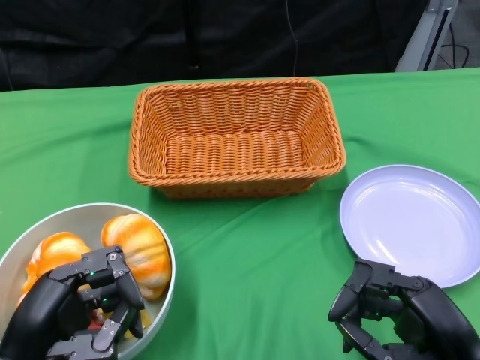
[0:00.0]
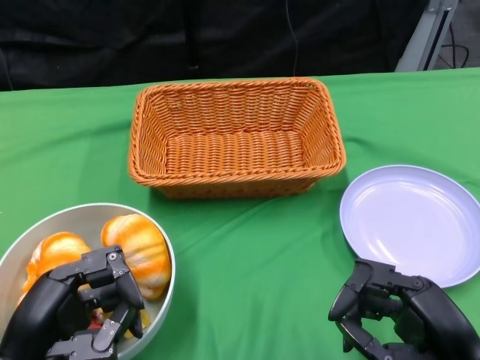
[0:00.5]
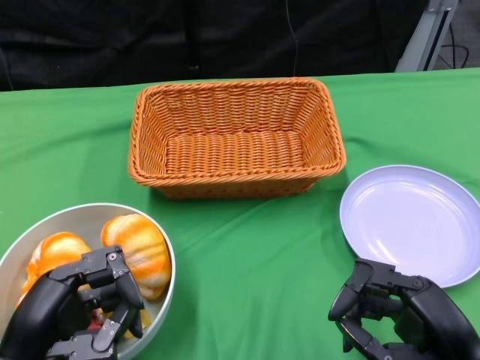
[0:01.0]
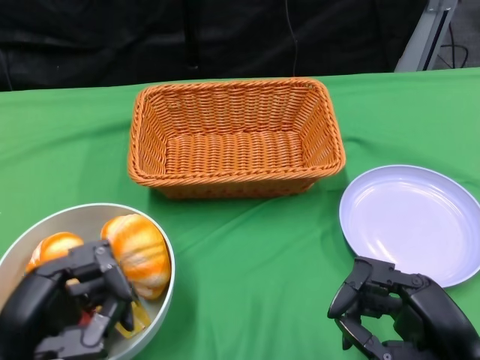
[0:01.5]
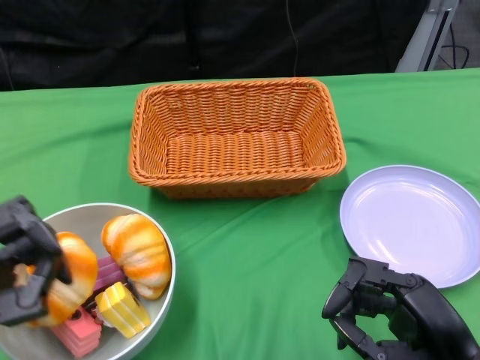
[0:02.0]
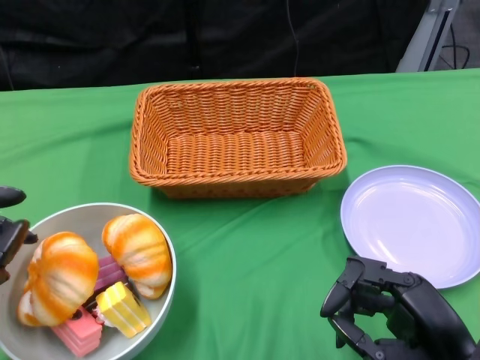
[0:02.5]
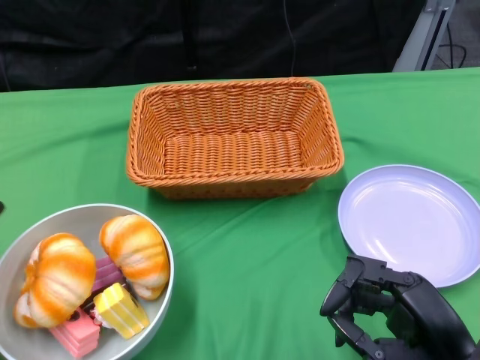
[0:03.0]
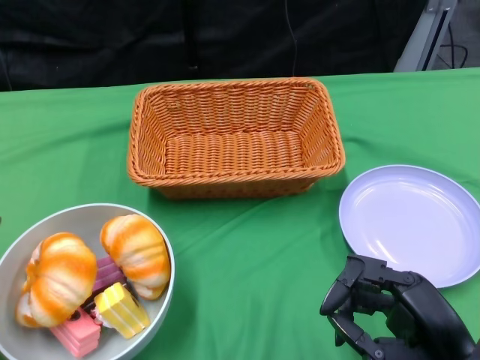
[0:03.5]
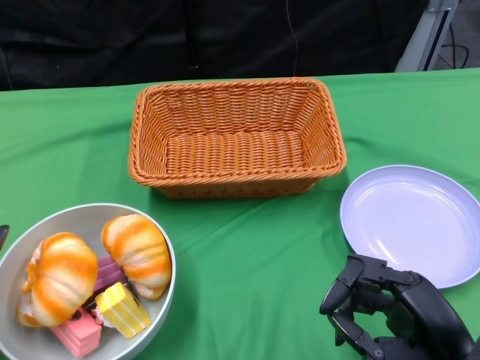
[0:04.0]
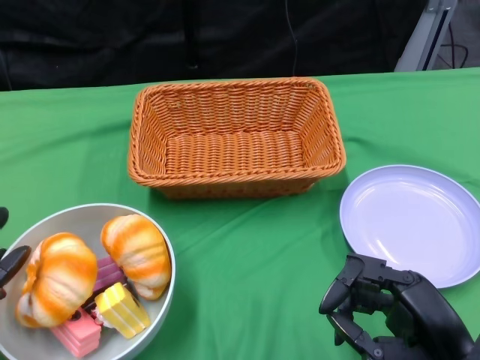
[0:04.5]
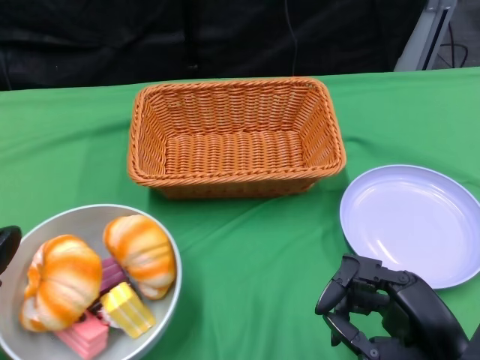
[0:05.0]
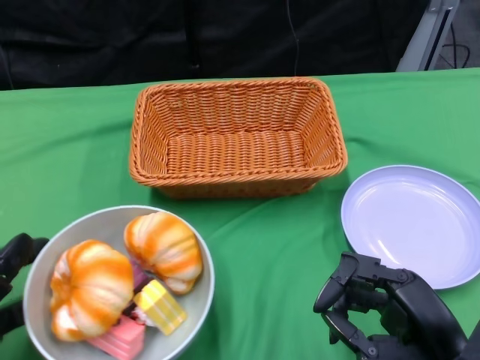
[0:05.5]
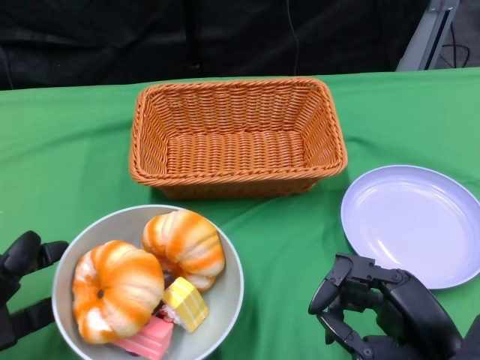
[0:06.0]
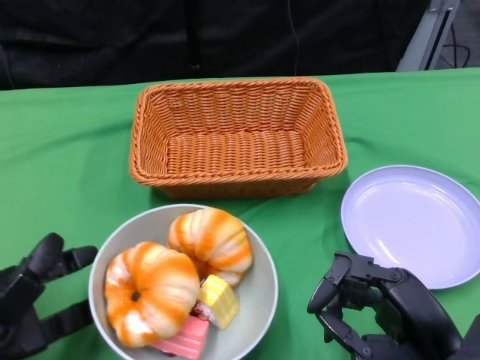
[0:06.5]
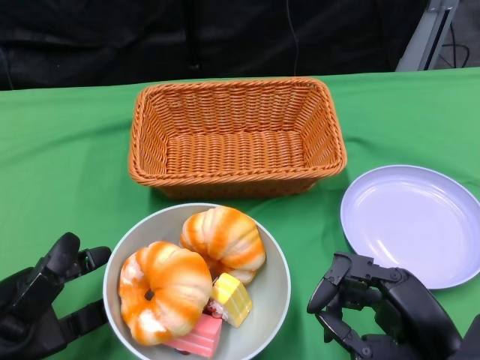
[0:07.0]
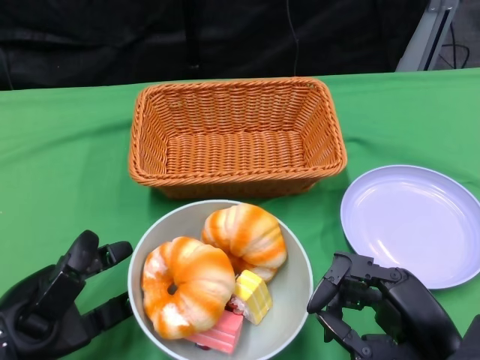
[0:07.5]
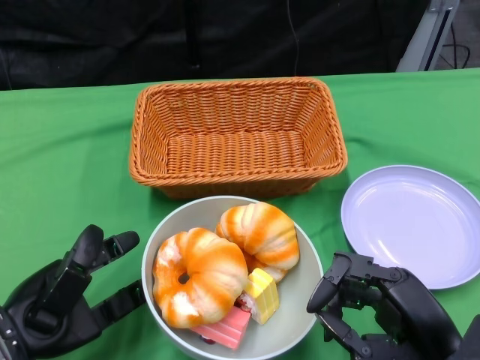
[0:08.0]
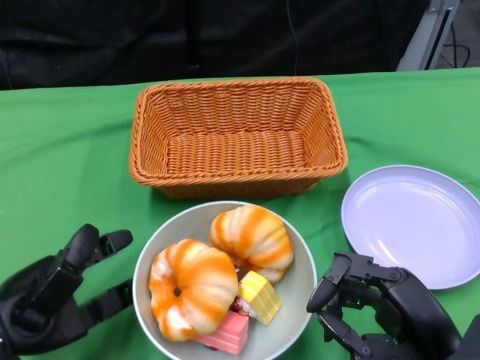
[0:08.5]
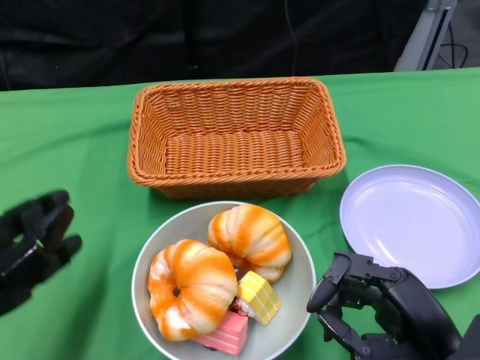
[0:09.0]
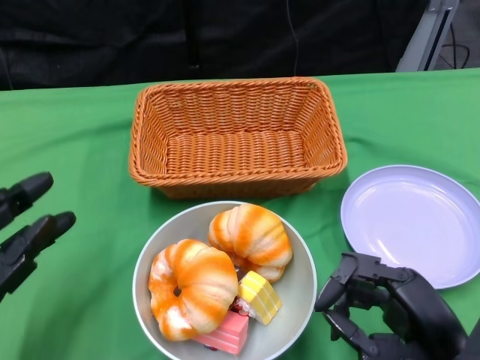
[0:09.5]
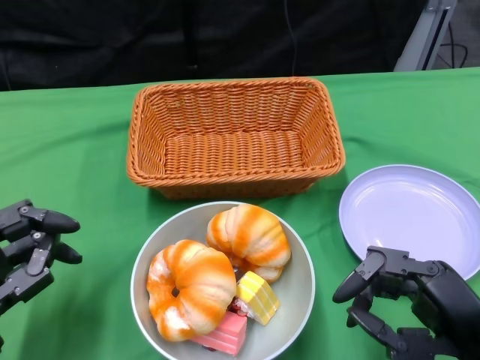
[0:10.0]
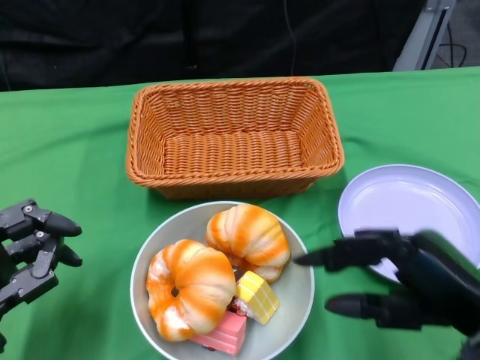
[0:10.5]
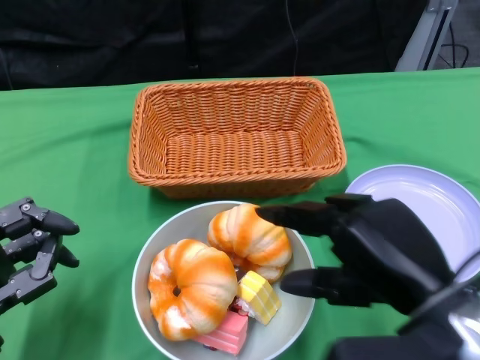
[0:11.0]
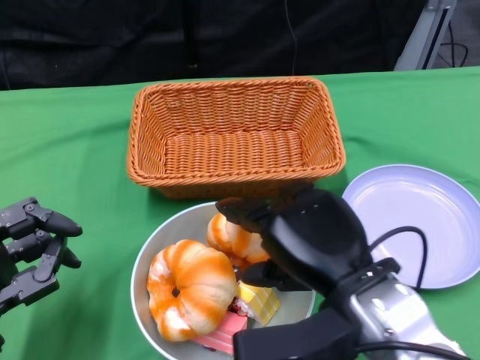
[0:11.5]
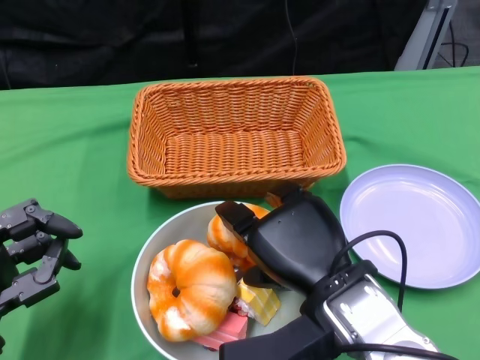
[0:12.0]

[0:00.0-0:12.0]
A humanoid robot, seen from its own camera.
Step, 0:00.0 to 0:09.0: Push the bowl to the center of the table using the left gripper.
0:06.0 to 0:08.0: The left hand shifts roughly 5 cm to the right.
0:10.0 to 0:12.0: The right hand is displaced to the left by approximately 15 cm.

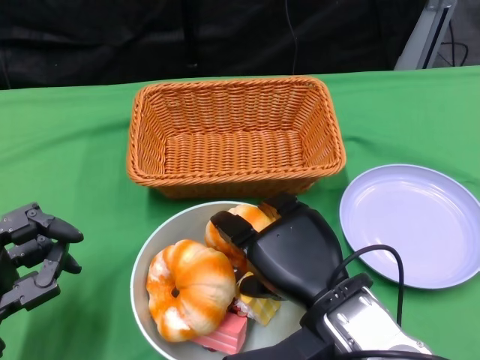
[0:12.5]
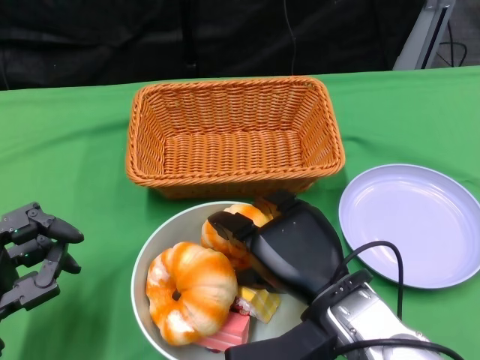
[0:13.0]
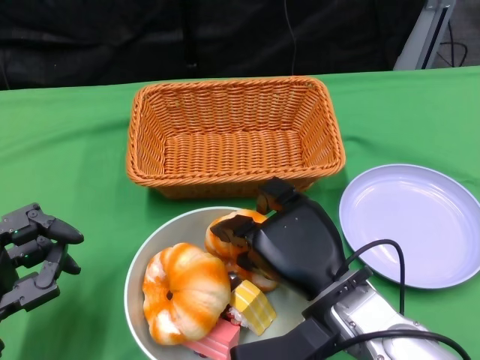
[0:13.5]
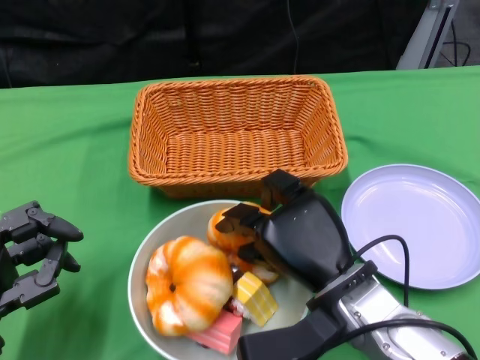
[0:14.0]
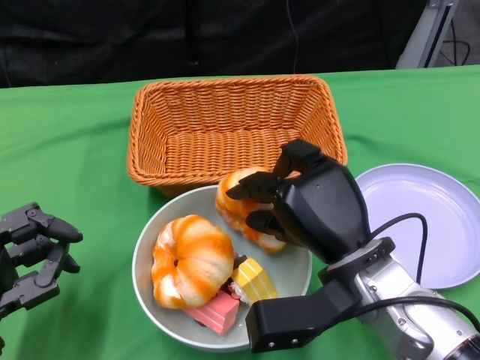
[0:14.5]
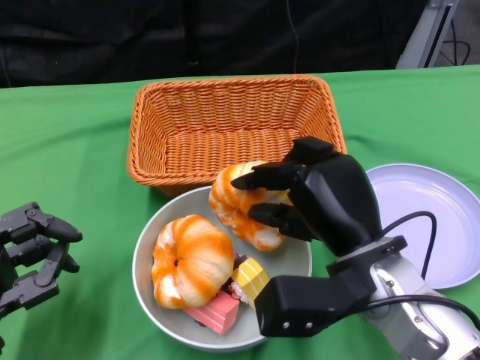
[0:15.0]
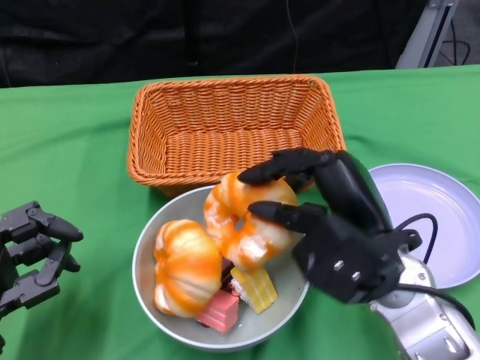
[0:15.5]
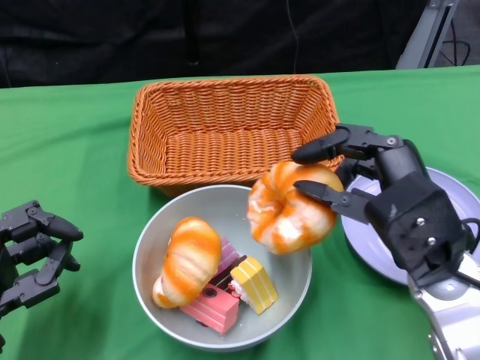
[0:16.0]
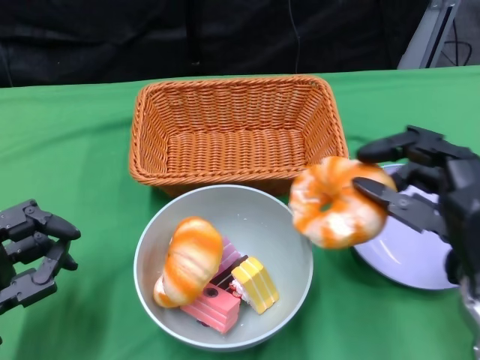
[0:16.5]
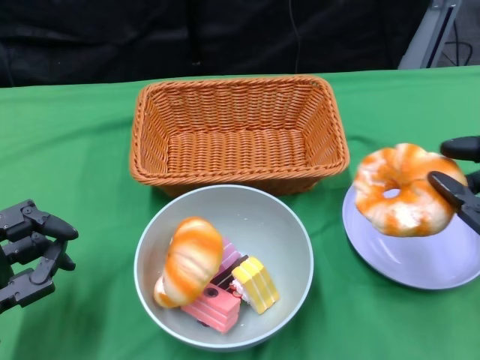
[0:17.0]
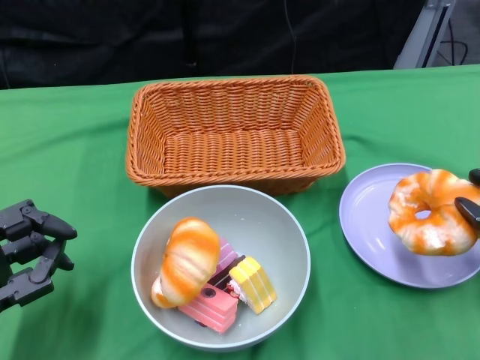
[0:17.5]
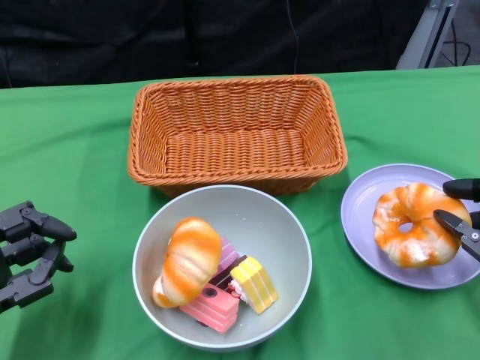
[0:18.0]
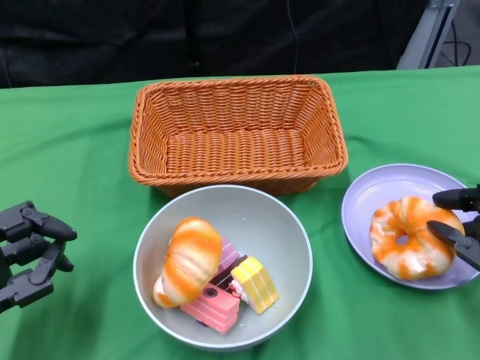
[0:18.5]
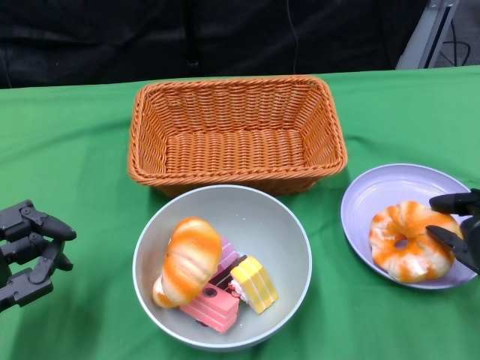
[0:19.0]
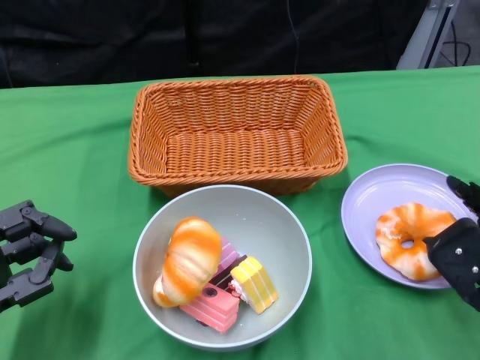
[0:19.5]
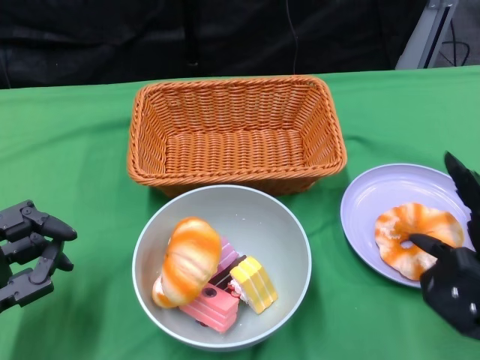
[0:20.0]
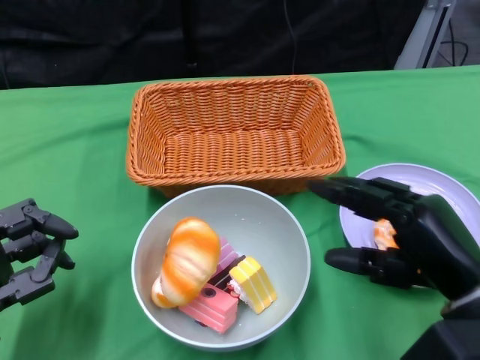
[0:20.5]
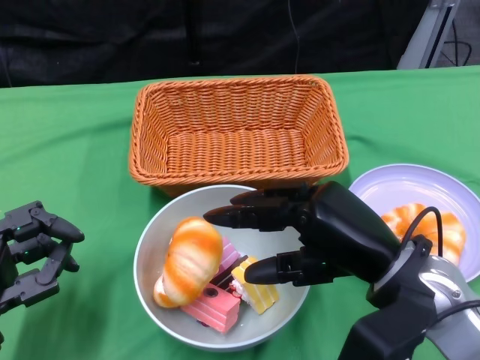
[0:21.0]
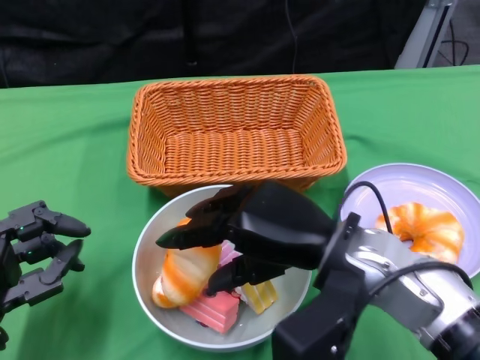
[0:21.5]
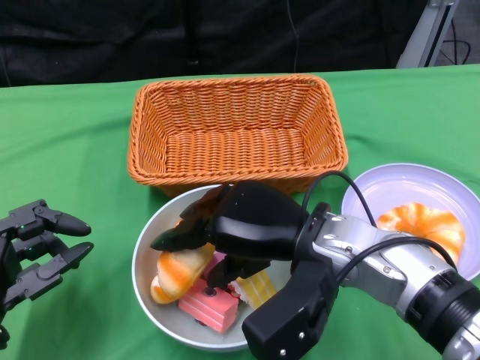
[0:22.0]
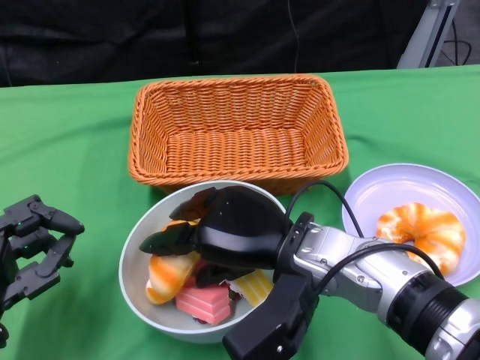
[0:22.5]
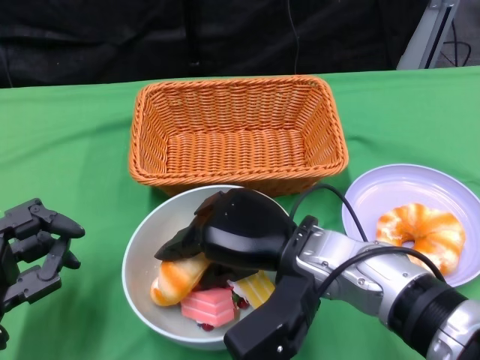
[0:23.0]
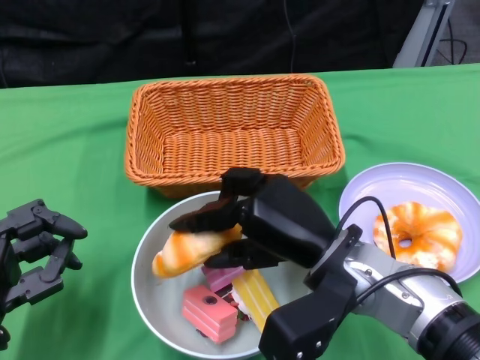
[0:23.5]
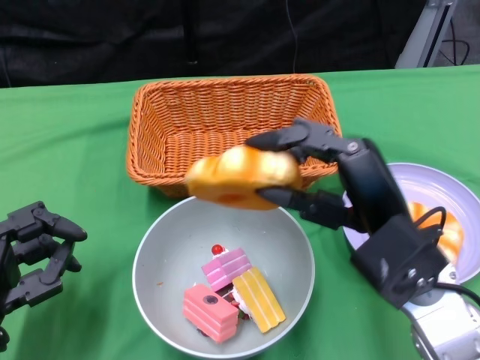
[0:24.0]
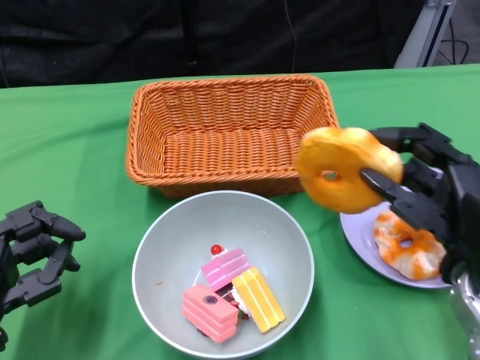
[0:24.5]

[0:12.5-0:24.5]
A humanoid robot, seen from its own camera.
0:14.5 to 0:16.5: The right hand heads to the right, covering some 10 cm.
0:16.5 to 0:18.5: The right hand goes roughly 10 cm downward and to the right.
0:18.5 to 0:20.5: The right hand shifts by approximately 5 cm.
0:20.5 to 0:22.5: The right hand goes roughly 15 cm to the left.
0:22.5 to 0:24.5: The right hand moves to the right, approximately 15 cm.

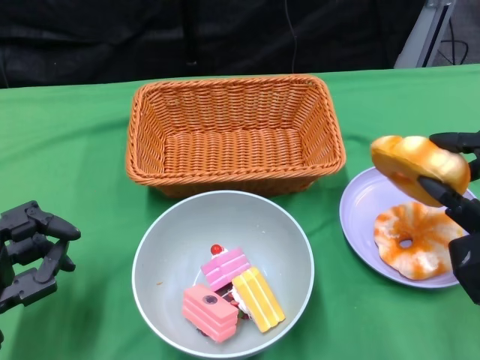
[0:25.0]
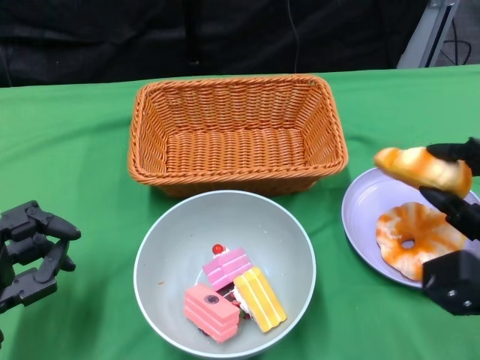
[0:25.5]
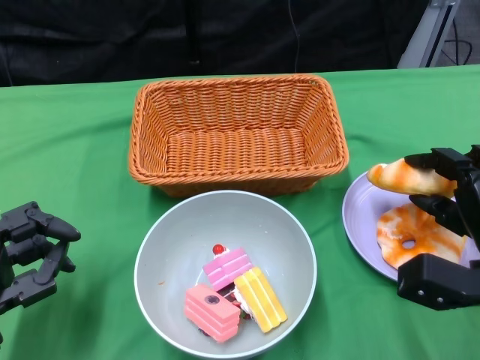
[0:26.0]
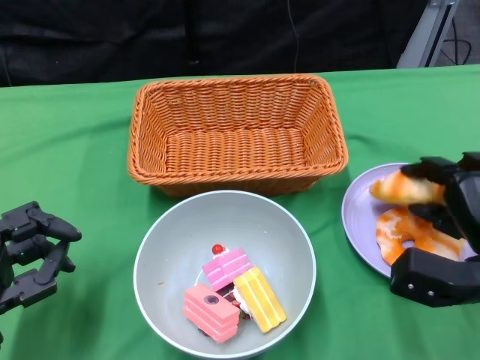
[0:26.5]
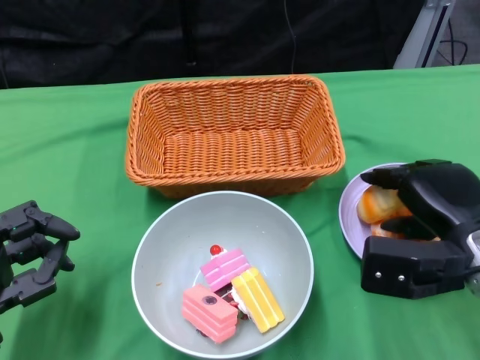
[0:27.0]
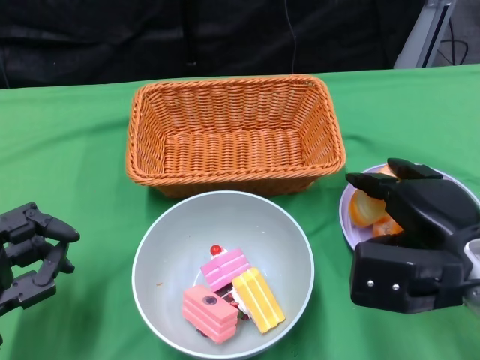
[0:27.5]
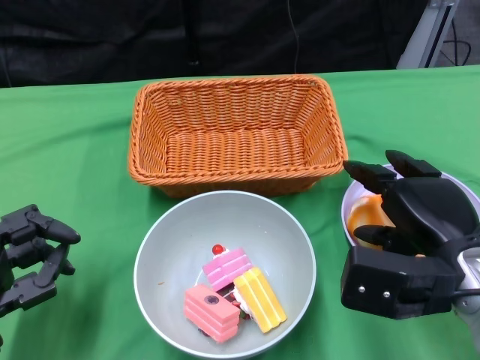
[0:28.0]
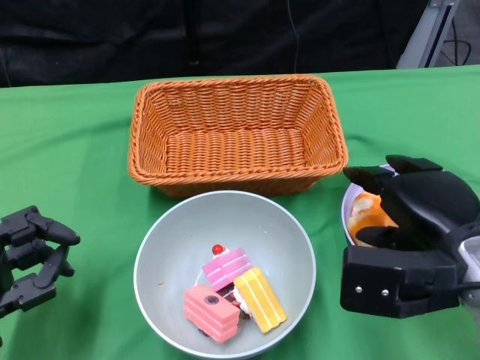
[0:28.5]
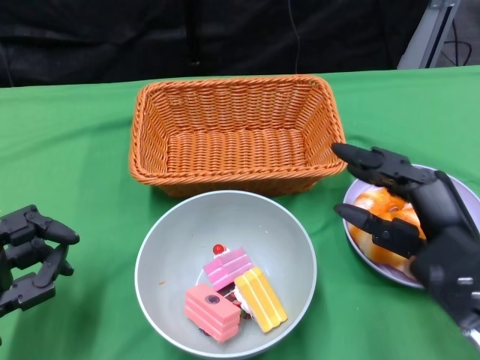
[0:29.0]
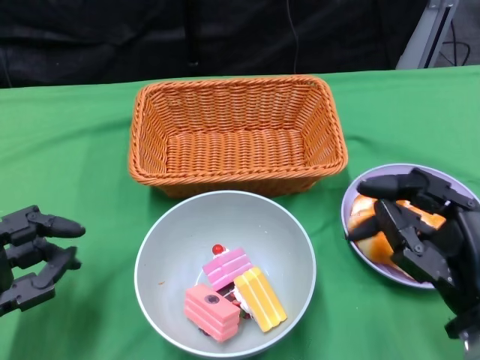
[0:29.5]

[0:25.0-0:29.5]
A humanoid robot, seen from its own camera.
Step, 0:25.0 to 0:28.5: Pick up the bread with the right gripper and place it on the plate.
0:27.0 to 0:29.5: The right hand travels backward by some 10 cm.
